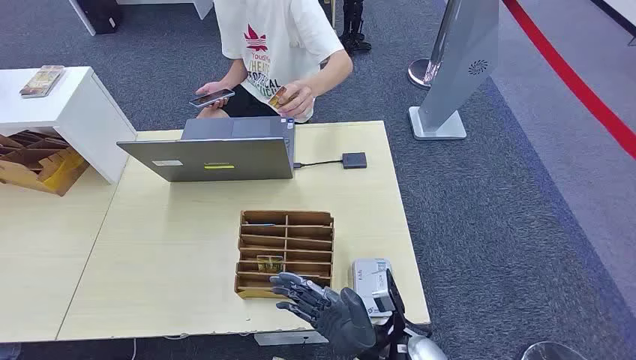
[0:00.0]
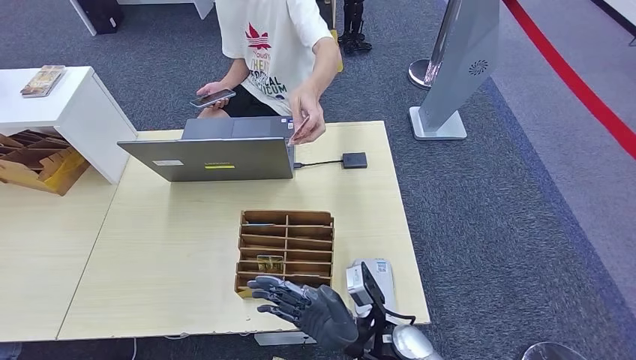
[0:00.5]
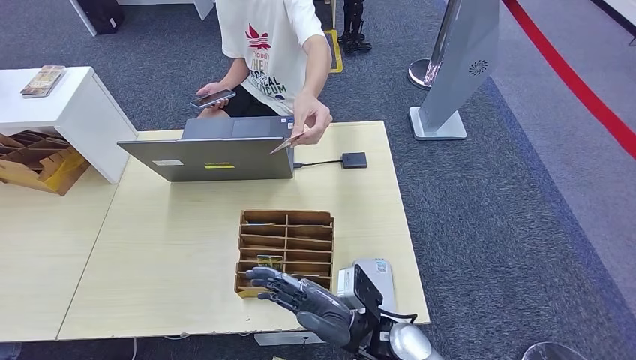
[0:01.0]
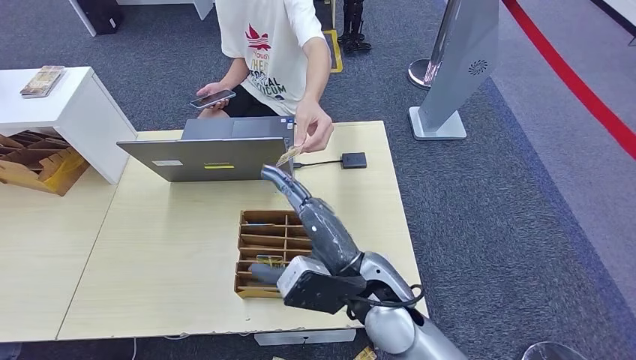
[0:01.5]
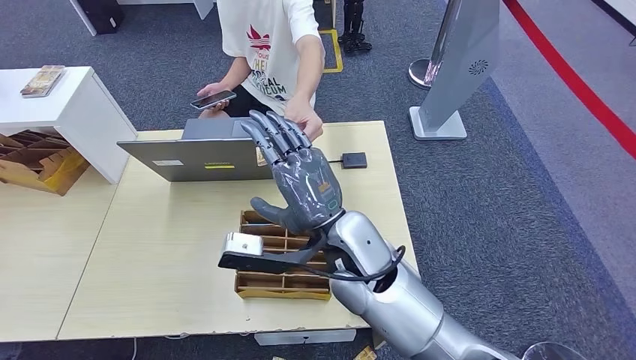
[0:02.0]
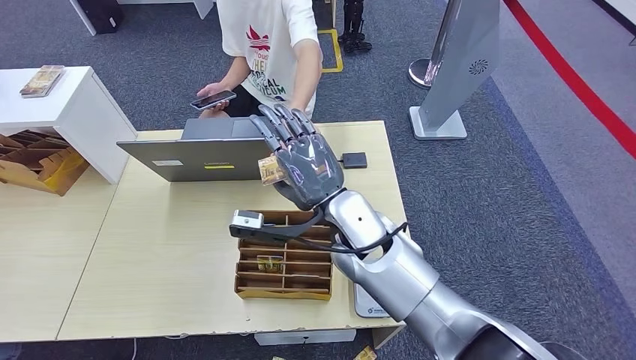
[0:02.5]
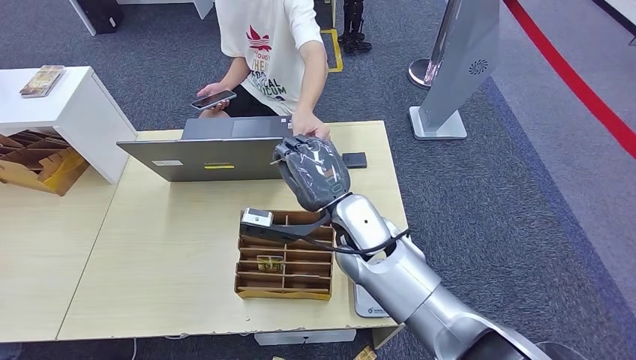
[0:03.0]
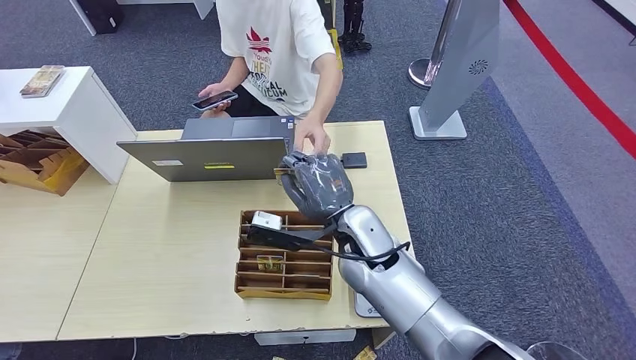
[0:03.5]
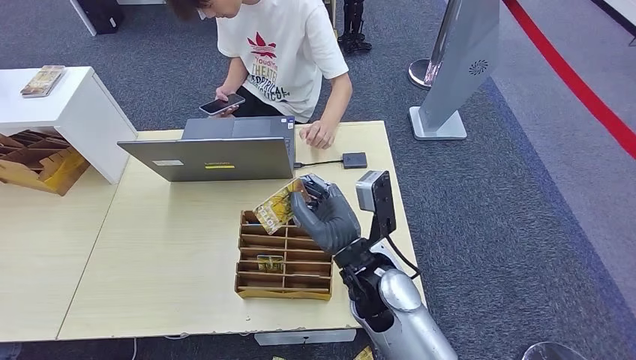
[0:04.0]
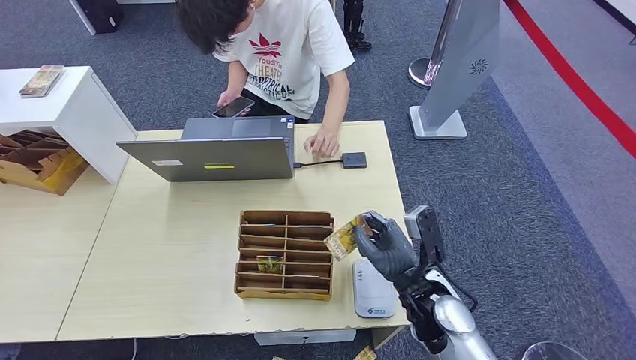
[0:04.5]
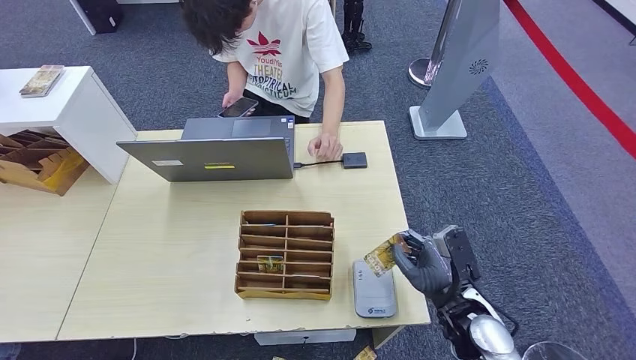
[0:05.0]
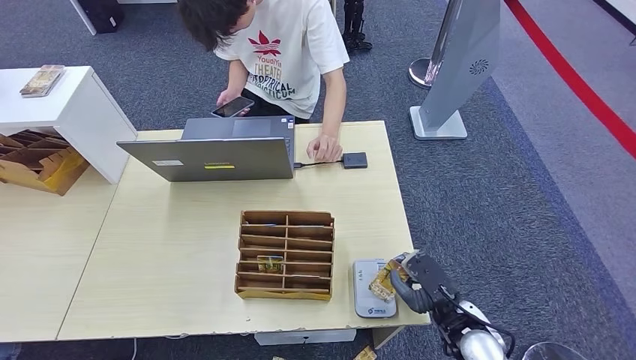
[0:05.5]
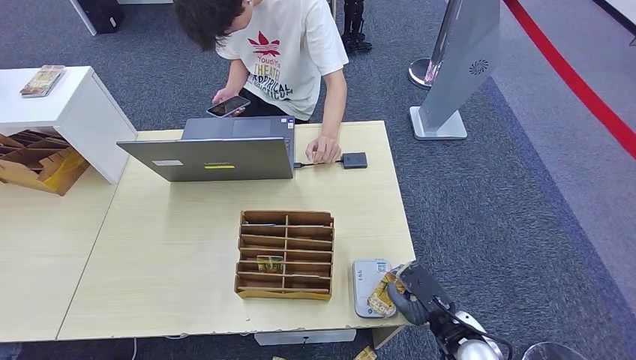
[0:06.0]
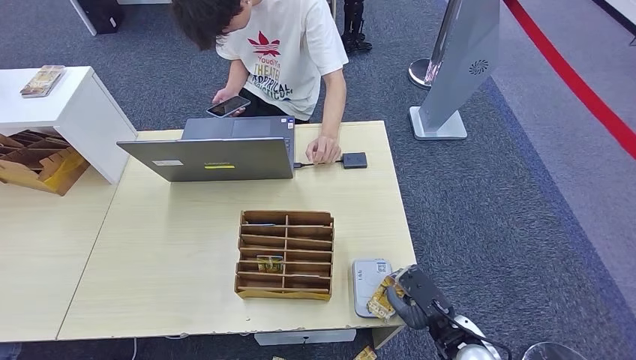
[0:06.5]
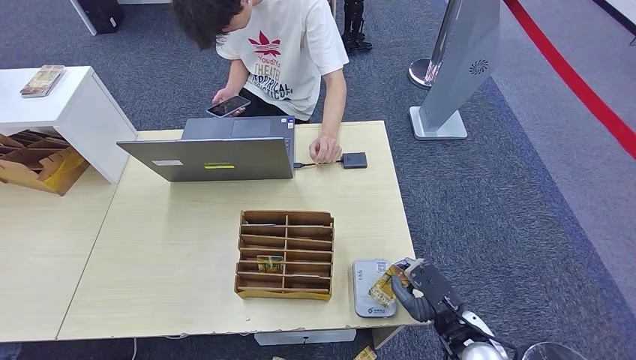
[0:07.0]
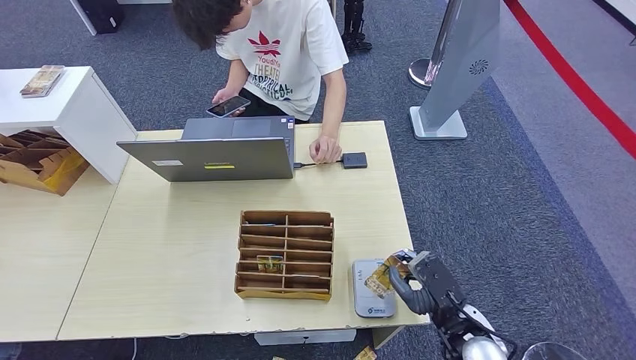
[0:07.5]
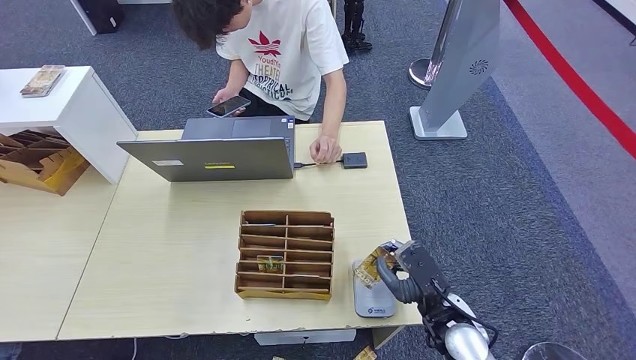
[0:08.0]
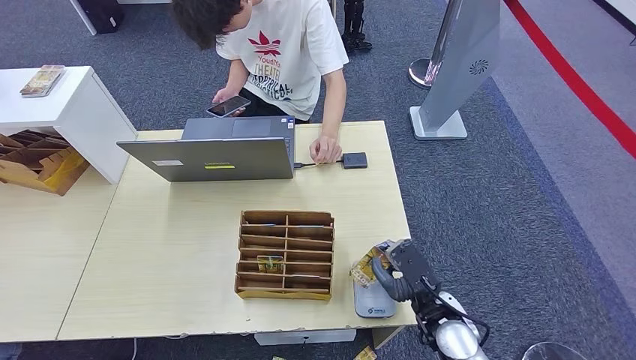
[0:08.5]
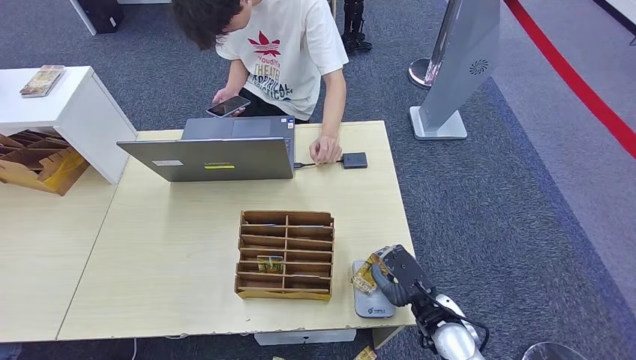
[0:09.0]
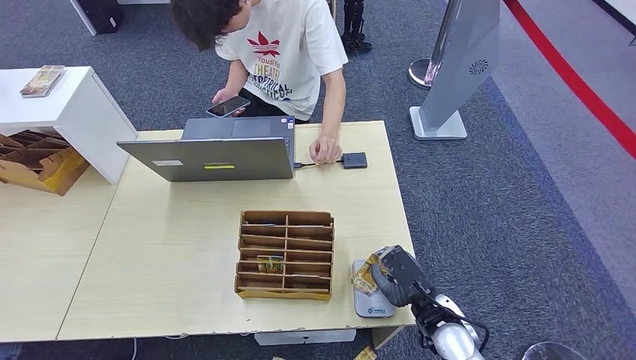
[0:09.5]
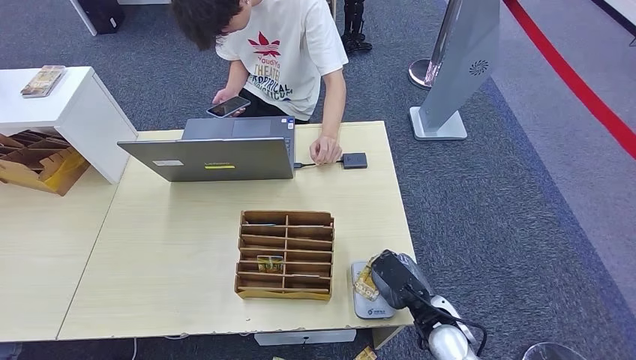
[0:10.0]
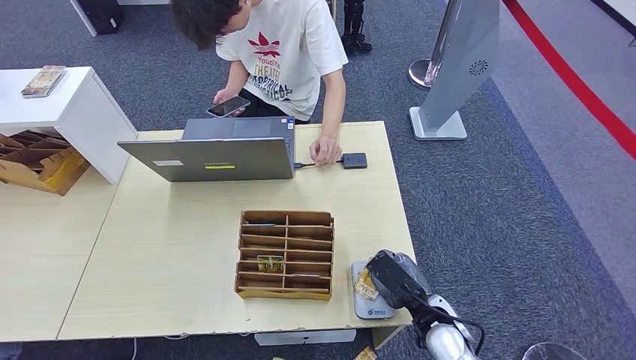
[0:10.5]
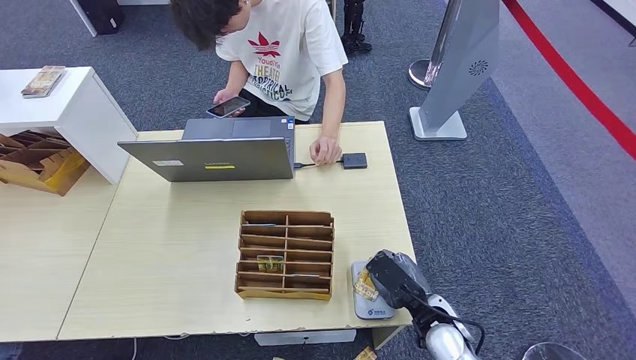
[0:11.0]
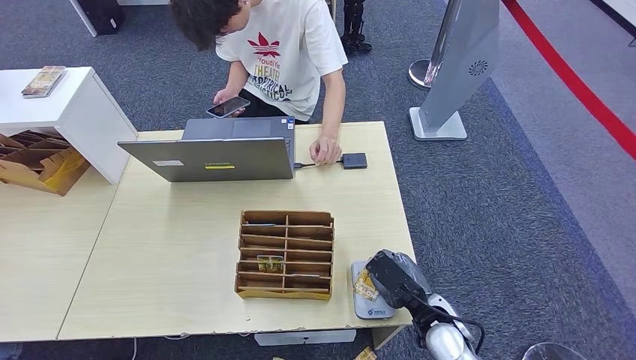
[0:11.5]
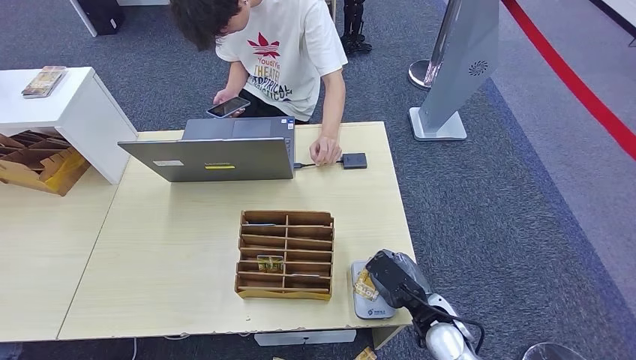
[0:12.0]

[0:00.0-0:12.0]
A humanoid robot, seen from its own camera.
Step, 0:00.0 to 0:05.0: Take the ID card from the person's hand.
Step, 0:05.5 to 0:07.5: Place the ID card on the card reader.
0:02.0 to 0:04.0: The right hand shifts roughly 5 cm downward.
0:04.0 to 0:06.0: The right hand moves to the right, downward and backward, some 25 cm.
0:06.0 to 0:10.0: There are only small adjustments of the hands.
0:10.0 to 0:12.0: The two hands keep their place.

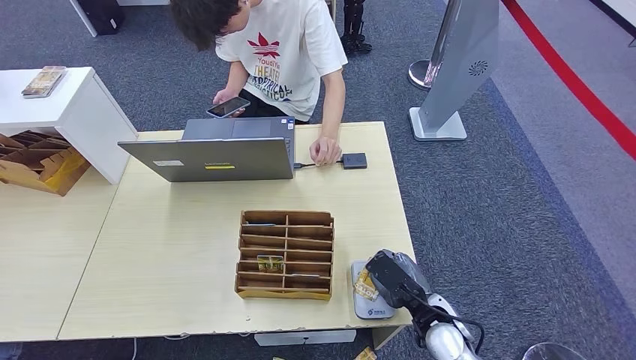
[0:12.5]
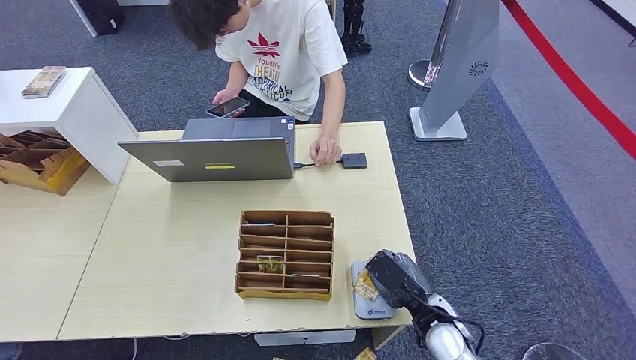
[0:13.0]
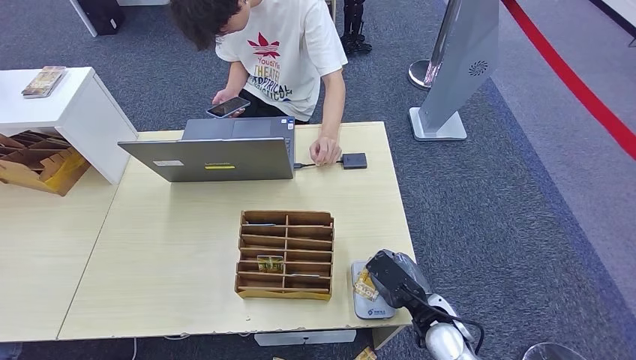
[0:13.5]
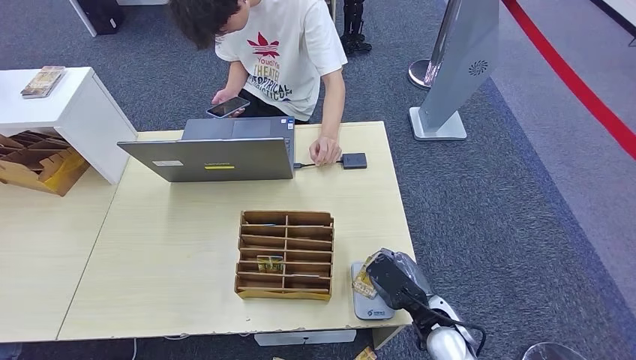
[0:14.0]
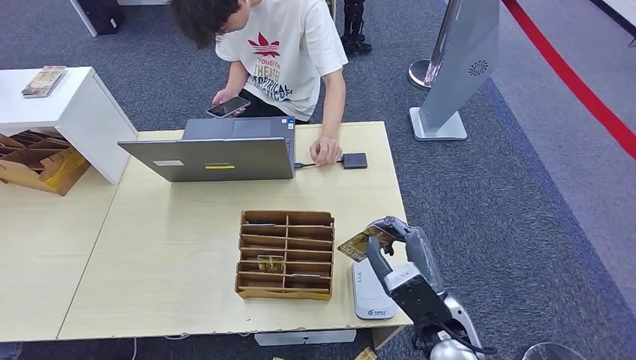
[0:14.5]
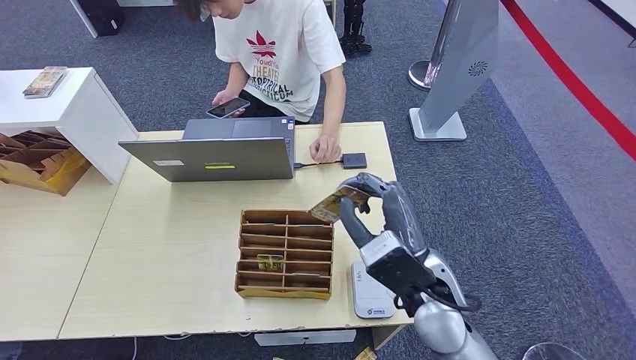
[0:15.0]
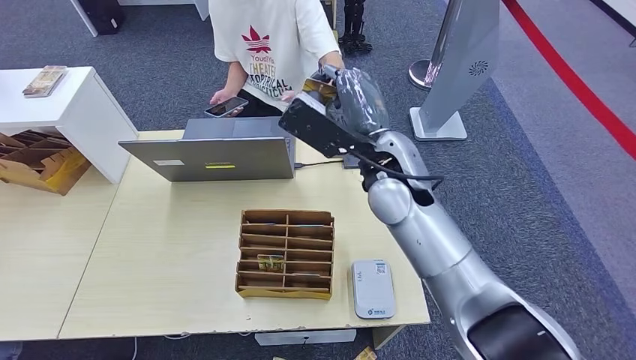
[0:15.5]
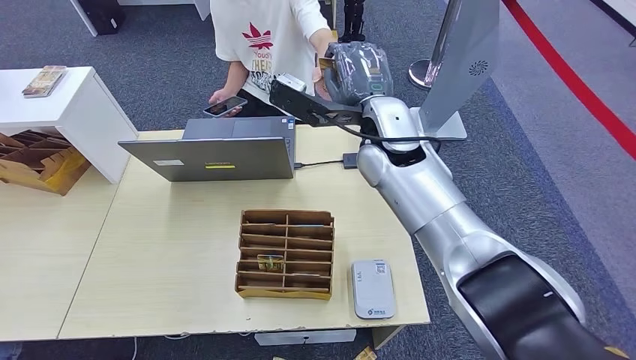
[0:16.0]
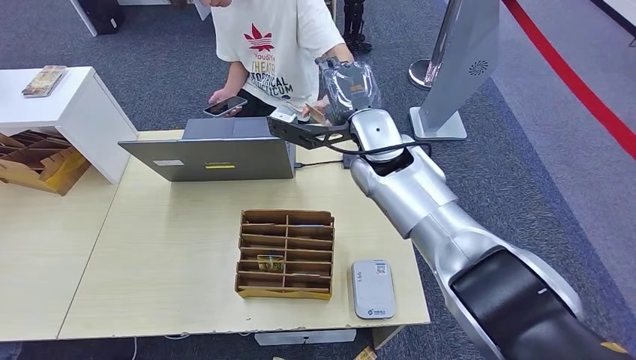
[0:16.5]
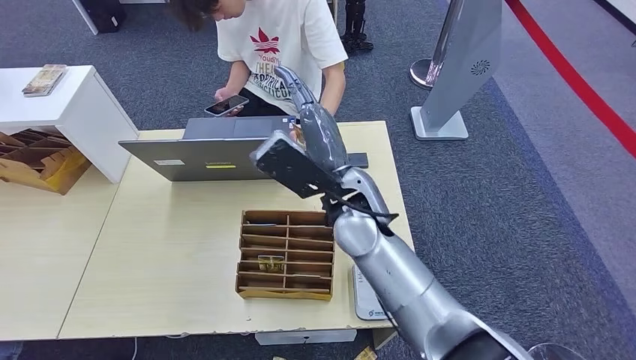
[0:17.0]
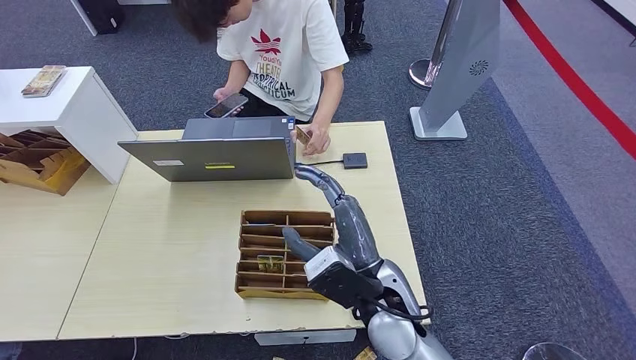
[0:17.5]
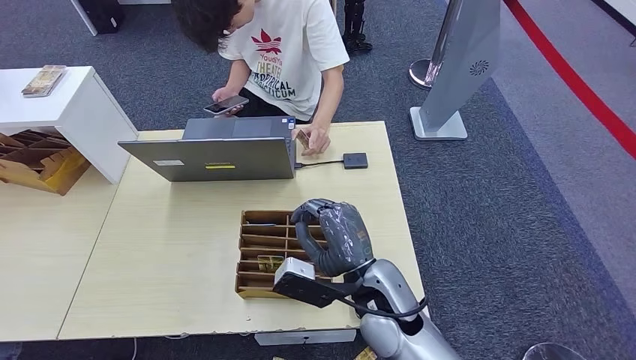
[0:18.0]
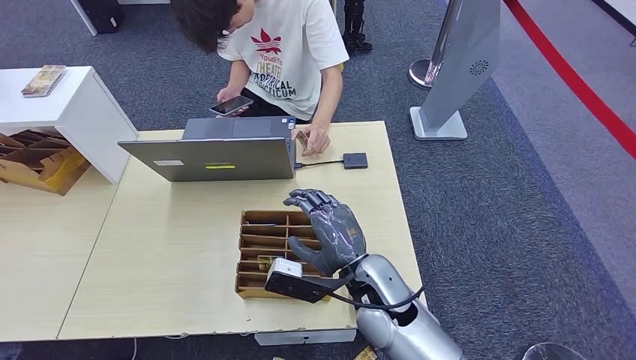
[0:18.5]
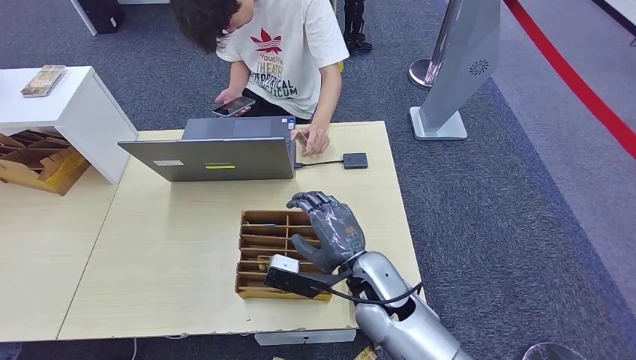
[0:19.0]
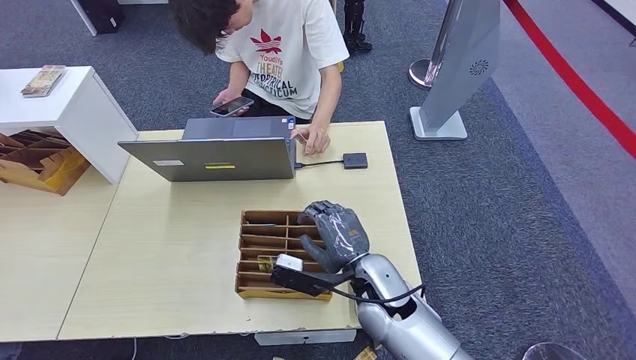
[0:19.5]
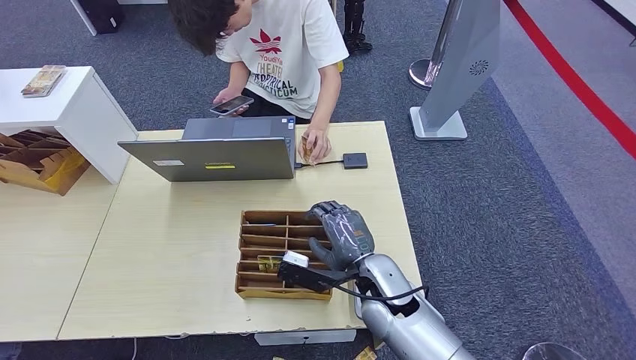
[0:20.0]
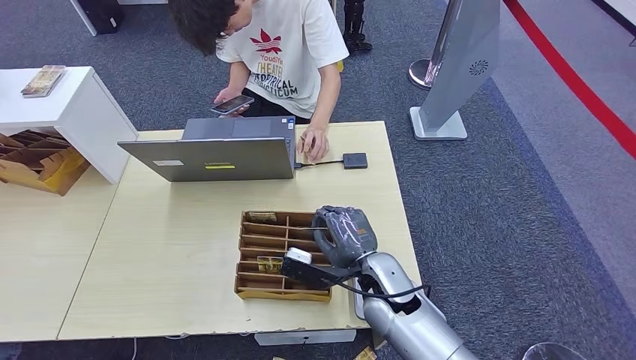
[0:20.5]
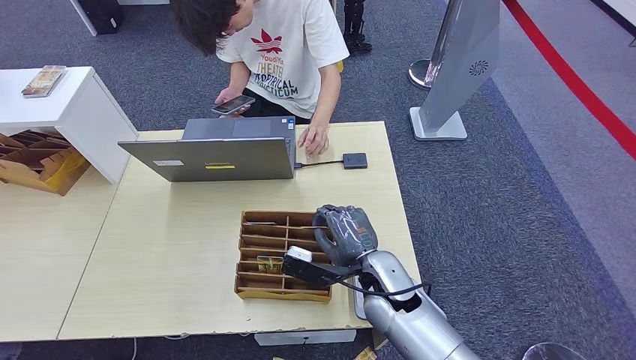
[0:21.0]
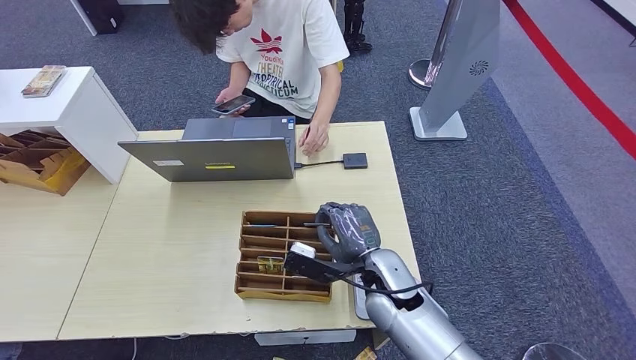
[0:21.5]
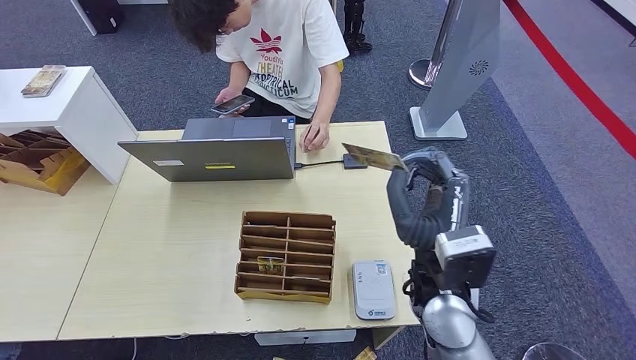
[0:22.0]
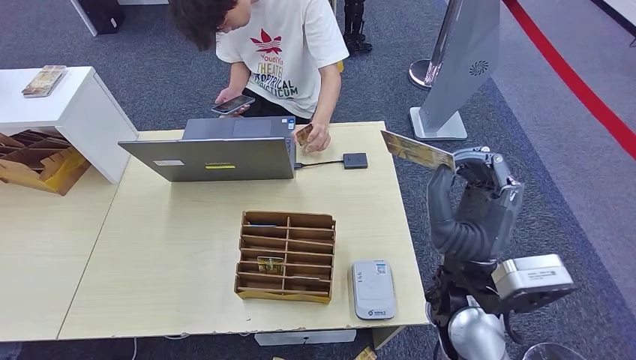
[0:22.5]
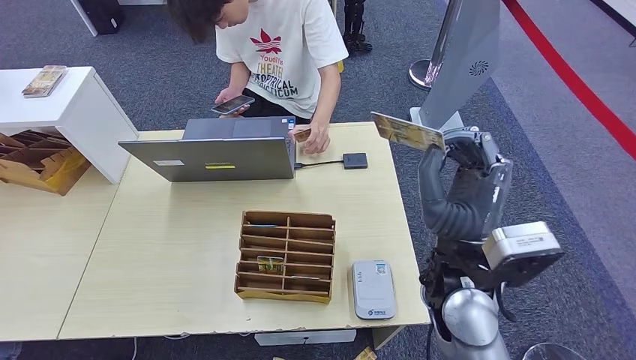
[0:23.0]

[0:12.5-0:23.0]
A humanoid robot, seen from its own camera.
Step, 0:12.5 to 0:18.0: Hand the ID card to the person.
Step, 0:18.5 to 0:21.0: Pick up the room key from the key card box.
0:12.5 to 0:14.5: The right hand travels upward by about 10 cm.
0:14.5 to 0:16.5: The right hand heads forward and upward, covering about 30 cm.
0:16.5 to 0:19.0: The right hand shifts approximately 25 cm backward and downward.
0:19.0 to 0:21.0: There are only small adjustments of the hands.
0:21.0 to 0:23.0: The right hand heads upward, covering some 15 cm.
